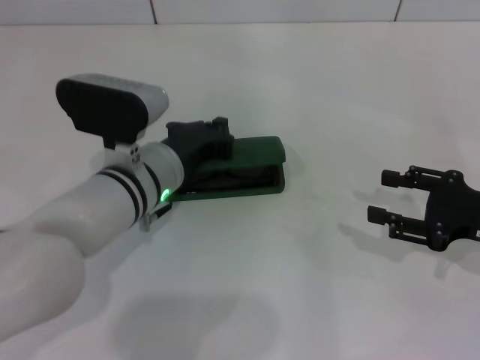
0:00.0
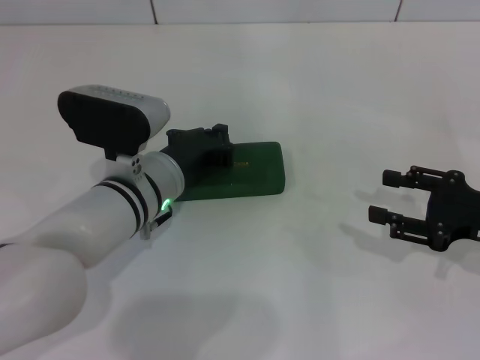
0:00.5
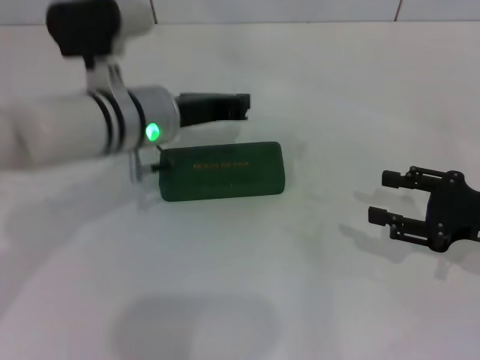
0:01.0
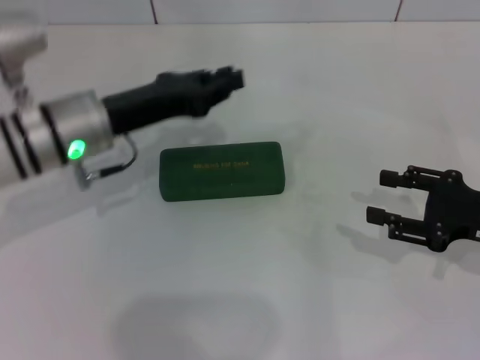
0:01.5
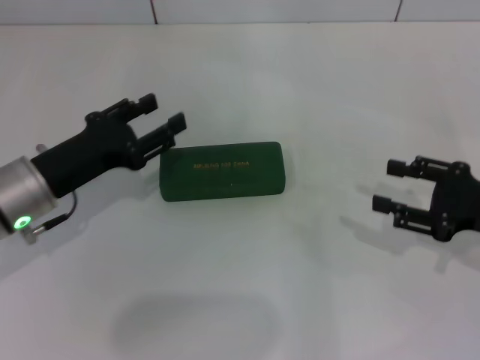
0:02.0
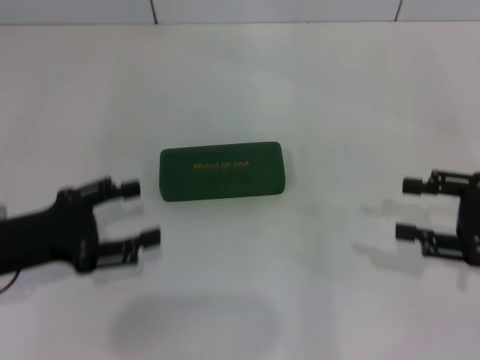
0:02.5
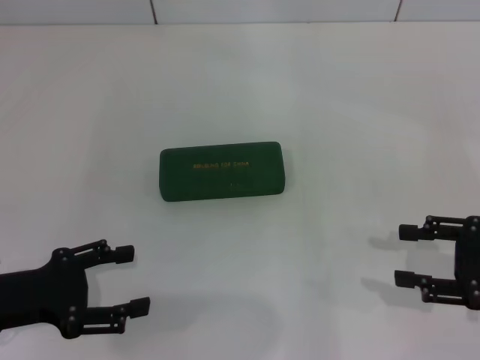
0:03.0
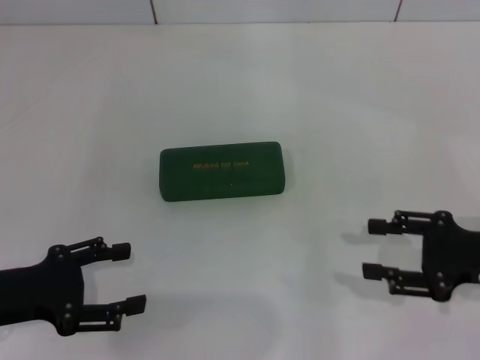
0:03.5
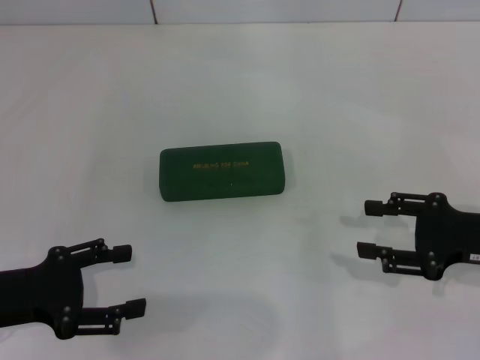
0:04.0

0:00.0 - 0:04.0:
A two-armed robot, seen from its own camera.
0:00.0 - 0:02.0: The left gripper is displaced to the left by approximately 15 cm, and opens up.
0:02.0 - 0:04.0: The left gripper shifts about 10 cm backward and to the left, and opens its fingers.

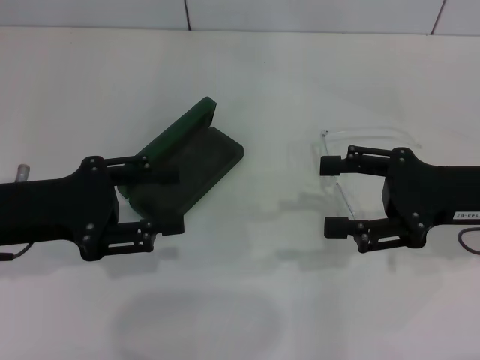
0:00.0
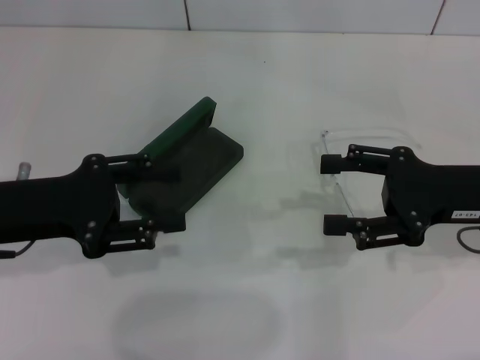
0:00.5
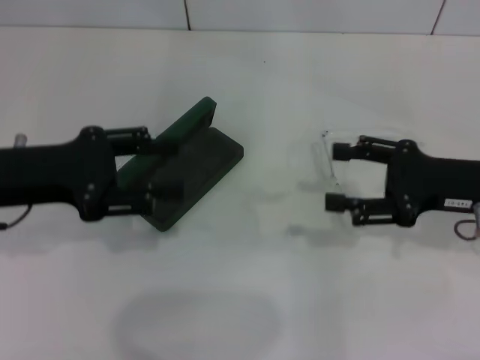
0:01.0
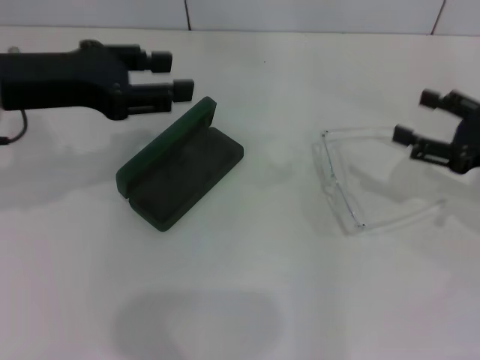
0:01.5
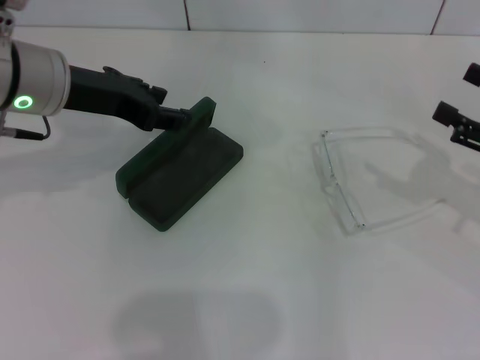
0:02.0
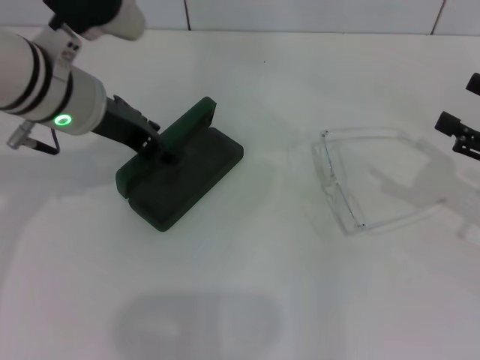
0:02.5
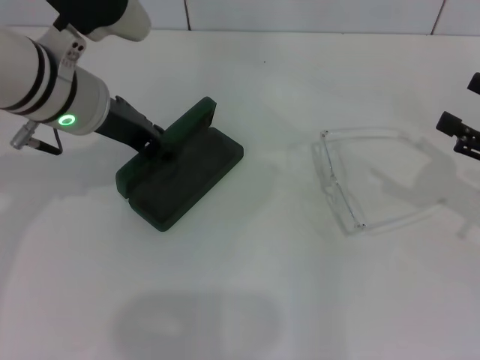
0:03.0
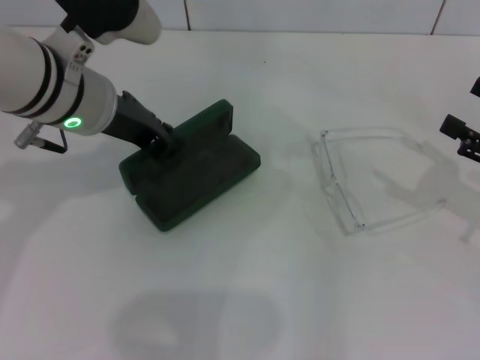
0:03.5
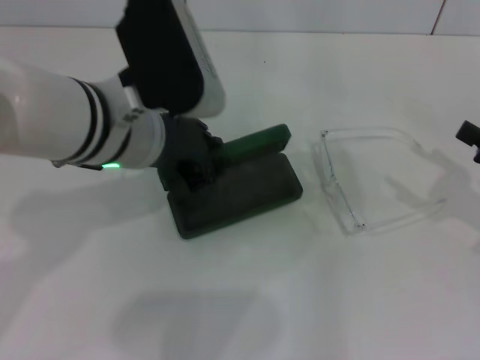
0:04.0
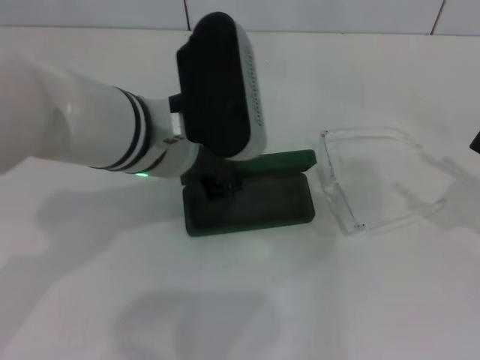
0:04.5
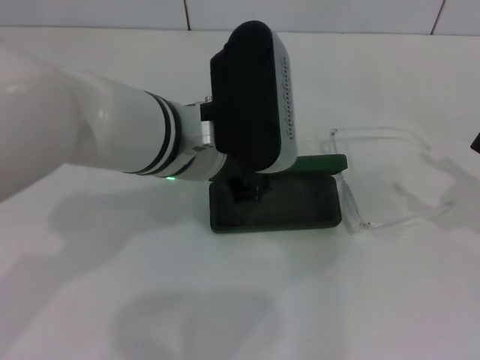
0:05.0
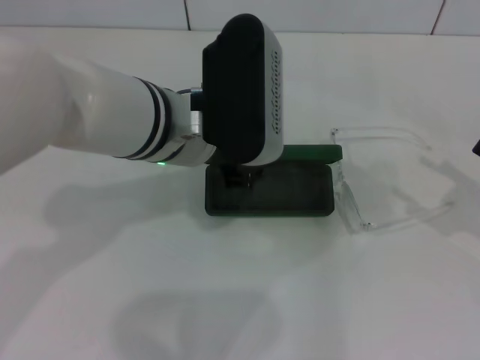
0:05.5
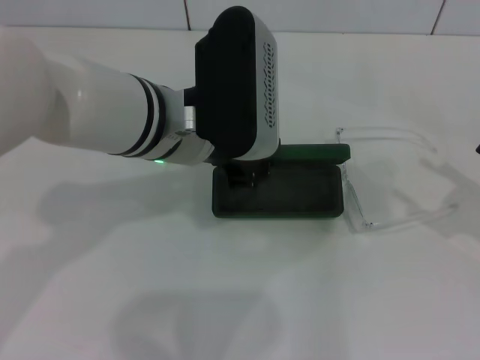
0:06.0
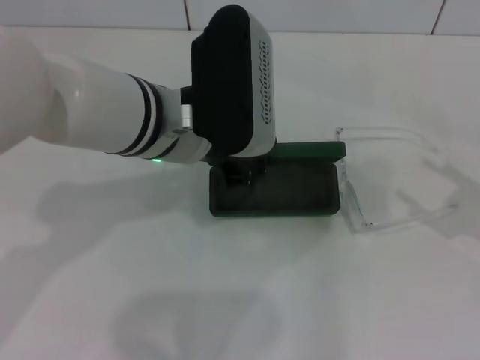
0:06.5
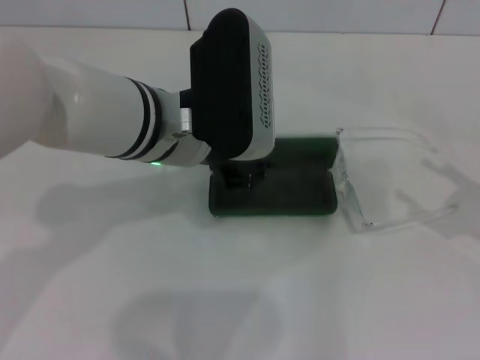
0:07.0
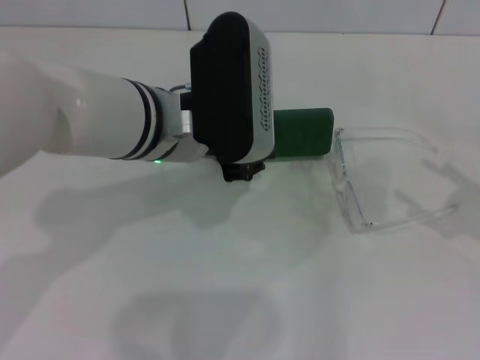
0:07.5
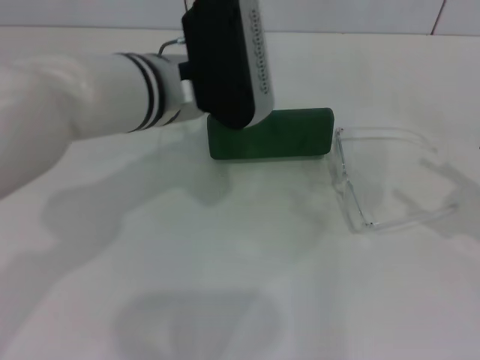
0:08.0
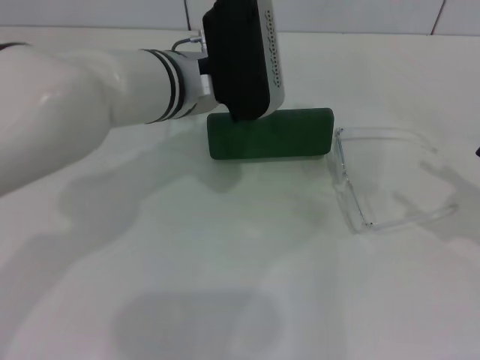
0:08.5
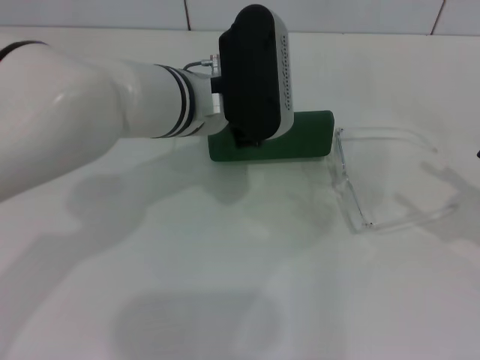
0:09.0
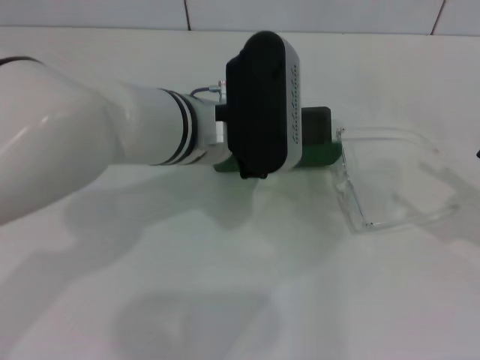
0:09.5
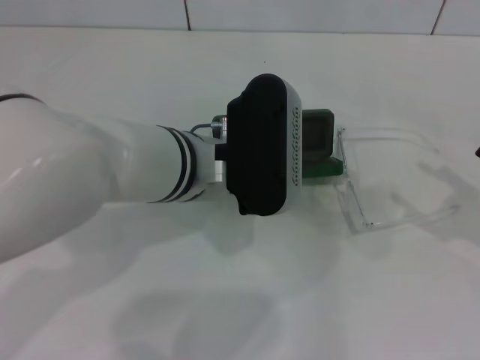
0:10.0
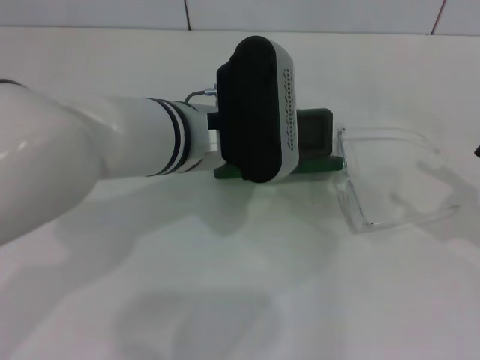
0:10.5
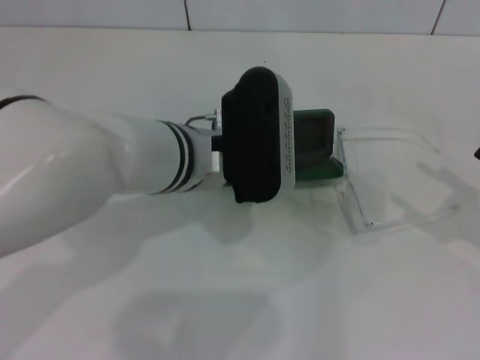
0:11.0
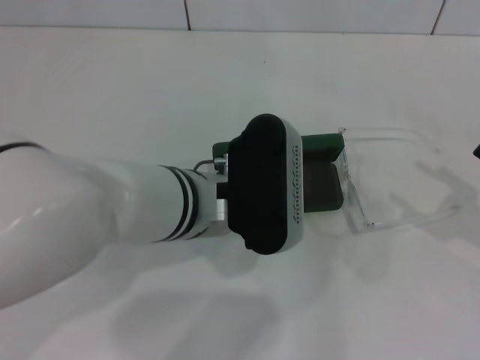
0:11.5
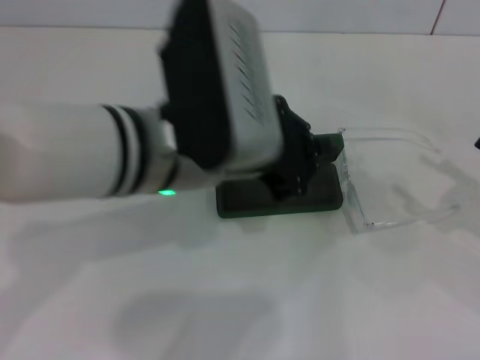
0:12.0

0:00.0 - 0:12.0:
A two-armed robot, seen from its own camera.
Step, 0:00.0 - 0:03.0: Grab the glasses case with your left hand.
Step, 0:03.5 - 0:12.0: Place the glasses case in the center of the table with your left hand.
0:00.0 - 0:02.0: The left gripper goes approximately 15 cm forward, upward and to the right, while the right gripper goes approximately 10 cm to the right.
0:02.0 - 0:04.0: The left gripper heads to the right, covering approximately 10 cm, and closes up.
0:06.0 - 0:08.0: The grippers stay close to where they were, moving slightly.
0:08.0 - 0:10.0: The left gripper changes place by approximately 5 cm, and closes up.
0:10.0 - 0:12.0: The left gripper heads upward, covering approximately 5 cm.

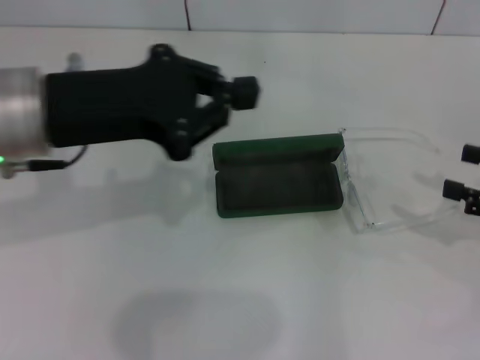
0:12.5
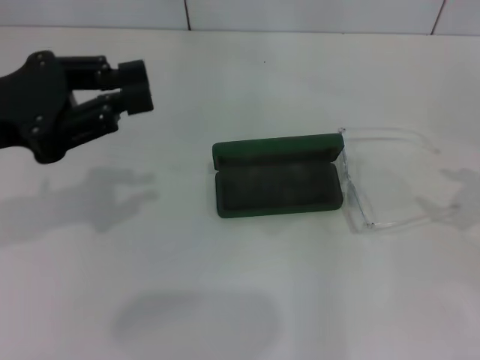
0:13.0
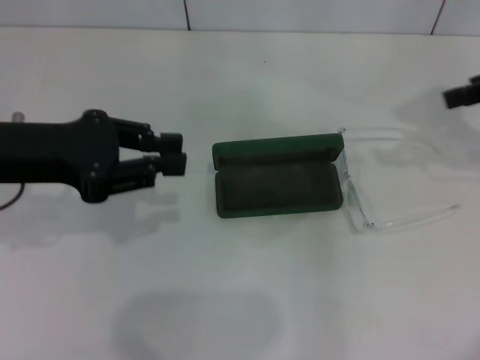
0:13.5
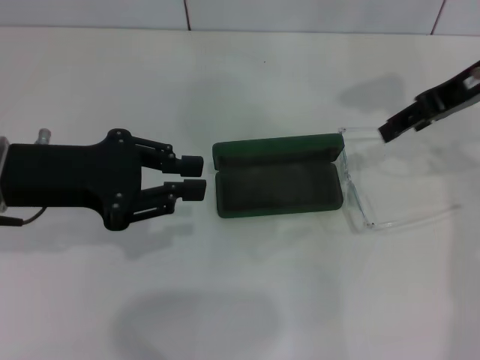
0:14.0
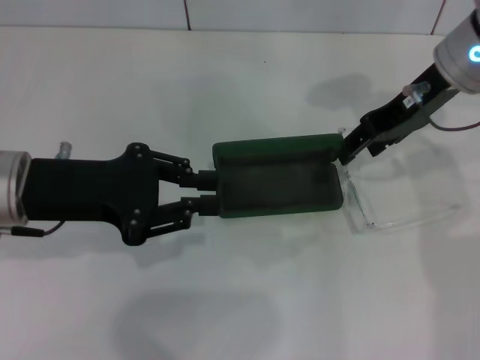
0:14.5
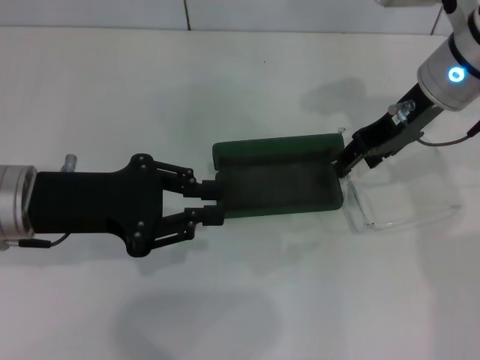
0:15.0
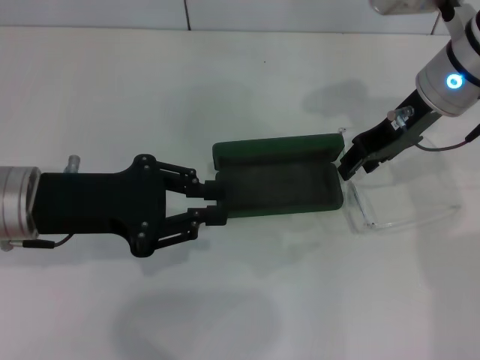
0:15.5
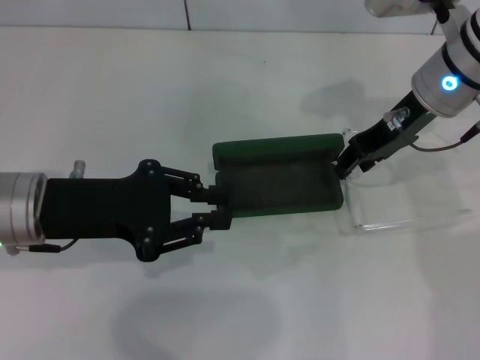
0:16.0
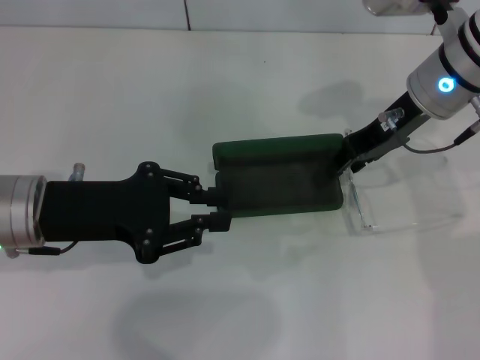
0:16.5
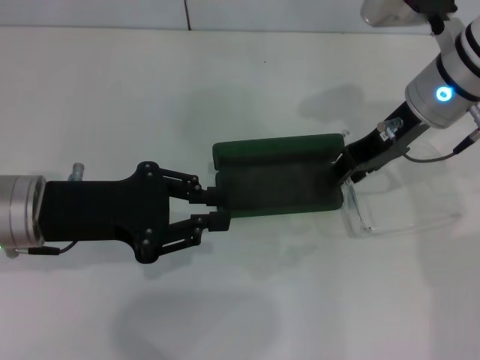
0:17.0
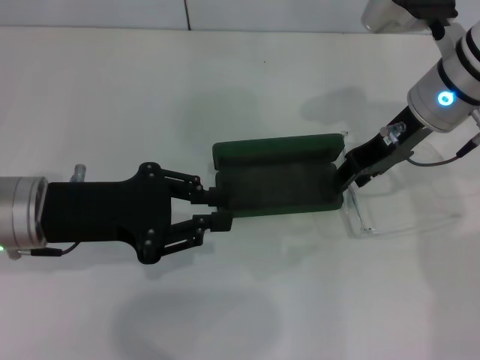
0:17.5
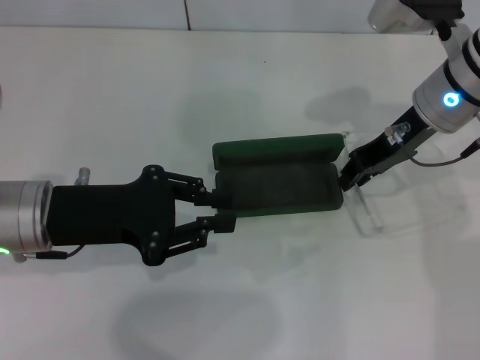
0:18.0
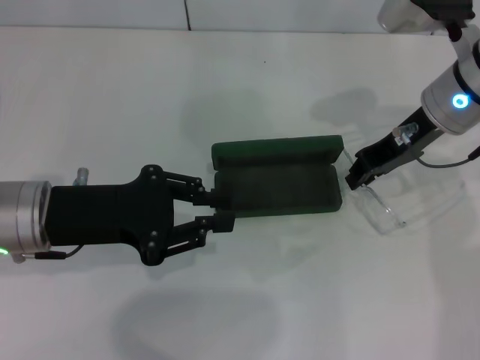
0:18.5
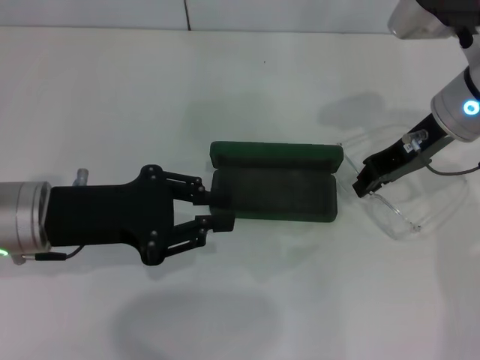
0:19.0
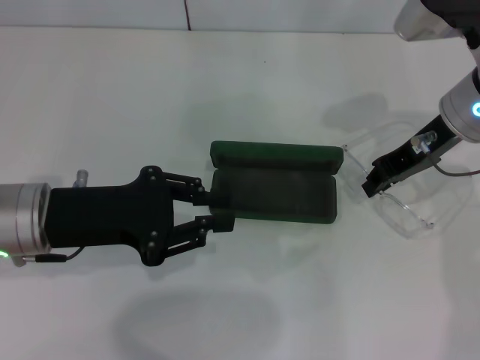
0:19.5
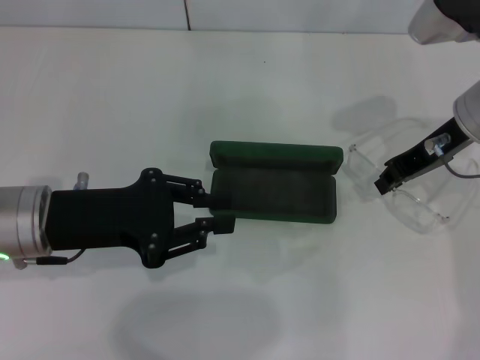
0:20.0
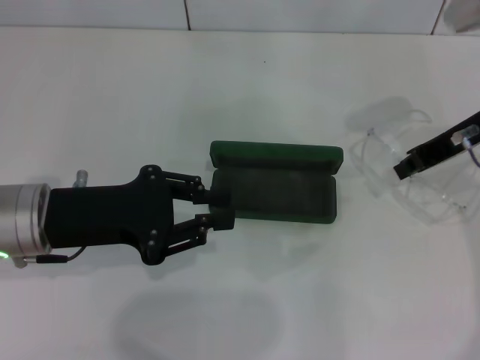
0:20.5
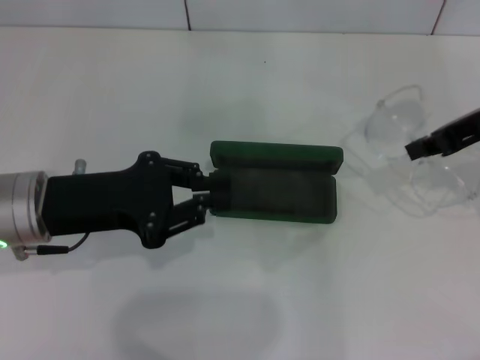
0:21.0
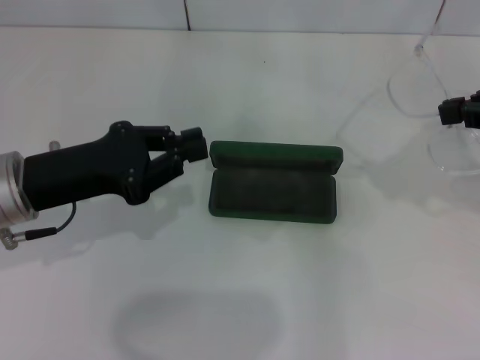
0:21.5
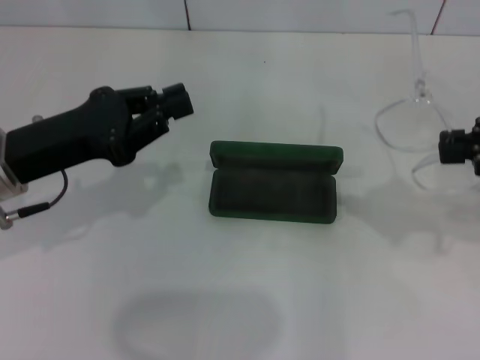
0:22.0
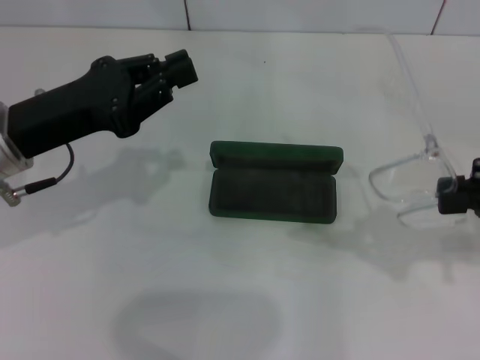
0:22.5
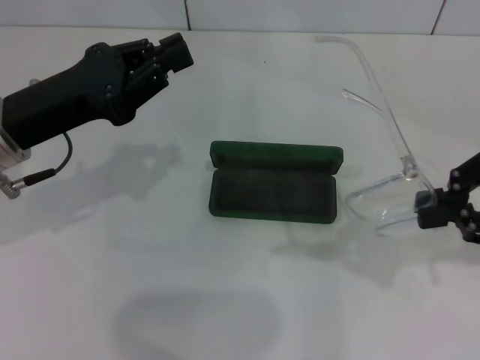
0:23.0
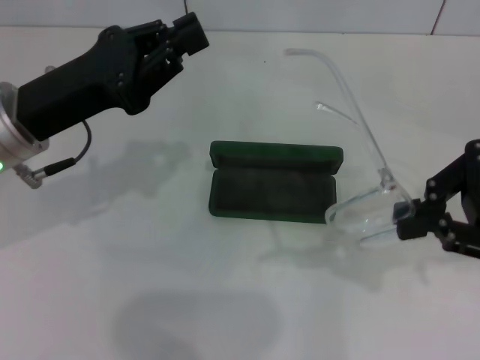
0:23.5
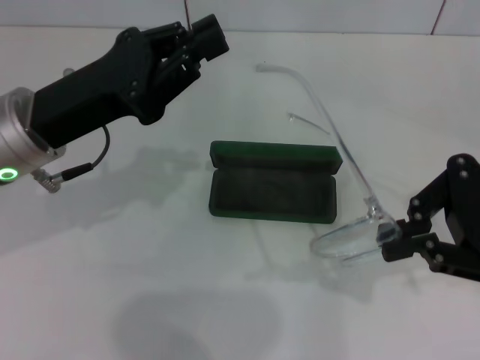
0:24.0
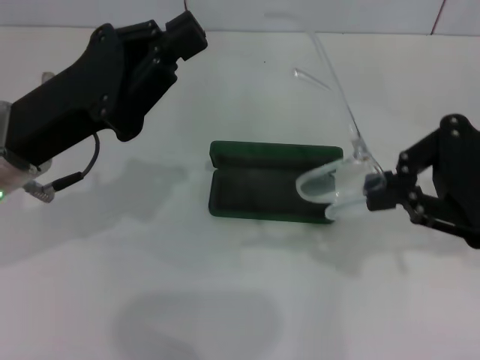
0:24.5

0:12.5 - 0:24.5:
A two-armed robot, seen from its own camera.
Step, 0:12.5 - 0:19.5: Grab the eyeglass frame with your right hand.
0:12.5 - 0:14.5: The left gripper heads downward, covering about 5 cm, while the right gripper heads to the left, forward and upward, covering about 25 cm.
0:14.5 - 0:18.5: There are only small adjustments of the grippers.
0:18.5 - 0:20.5: The right gripper changes place by about 5 cm.
0:20.5 - 0:22.5: The right gripper heads backward and to the right, covering about 15 cm.
0:22.5 - 0:24.5: The right gripper heads to the left, covering about 5 cm.
